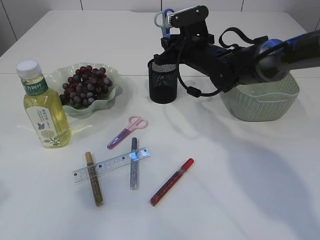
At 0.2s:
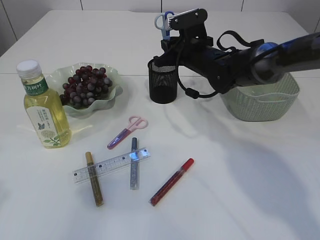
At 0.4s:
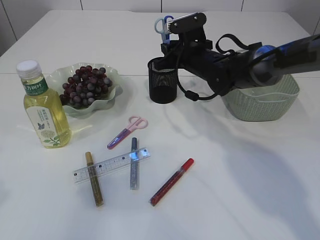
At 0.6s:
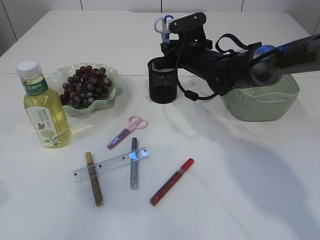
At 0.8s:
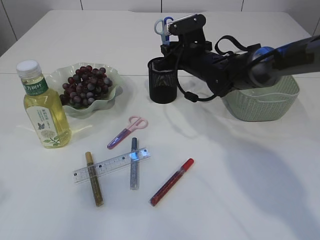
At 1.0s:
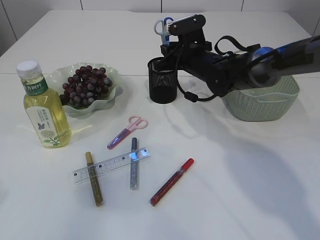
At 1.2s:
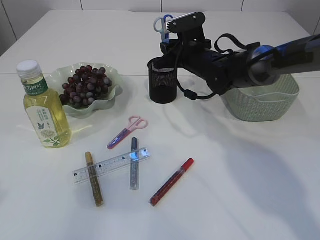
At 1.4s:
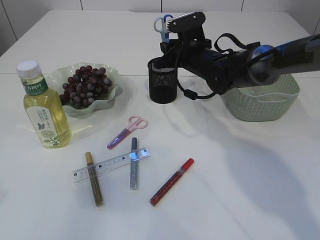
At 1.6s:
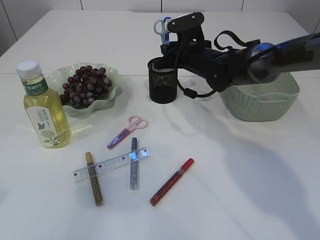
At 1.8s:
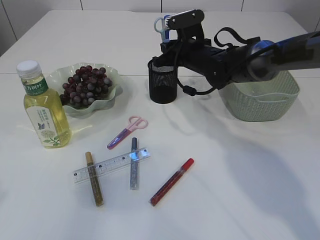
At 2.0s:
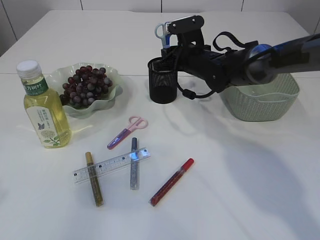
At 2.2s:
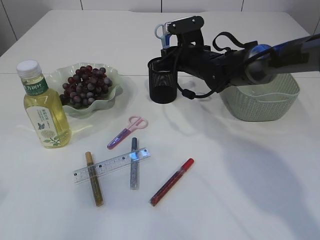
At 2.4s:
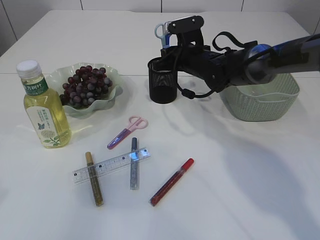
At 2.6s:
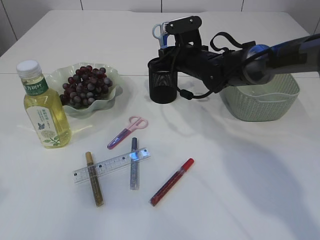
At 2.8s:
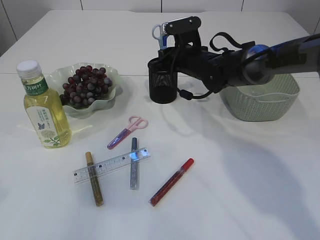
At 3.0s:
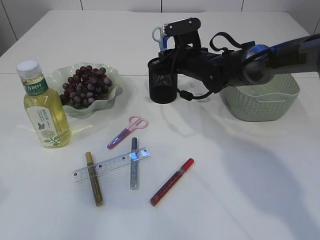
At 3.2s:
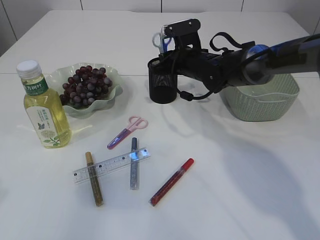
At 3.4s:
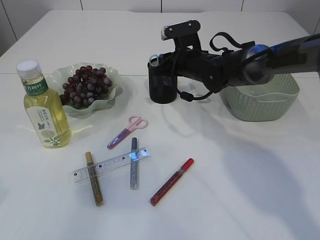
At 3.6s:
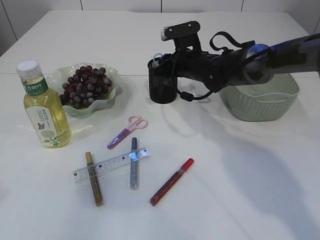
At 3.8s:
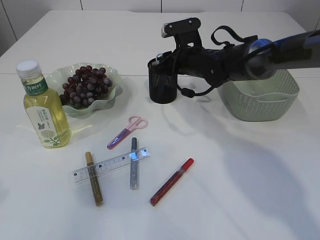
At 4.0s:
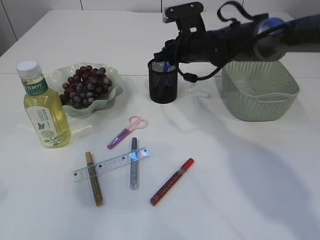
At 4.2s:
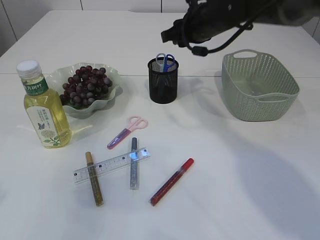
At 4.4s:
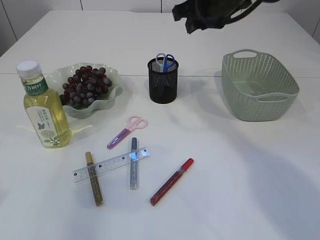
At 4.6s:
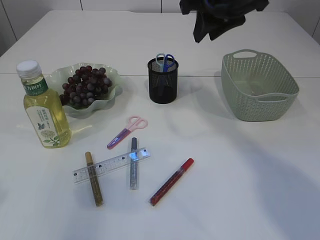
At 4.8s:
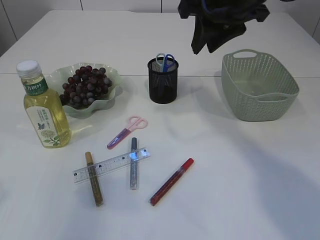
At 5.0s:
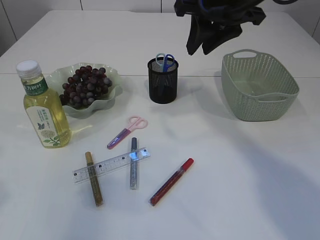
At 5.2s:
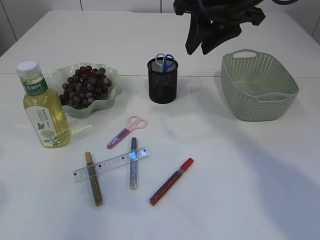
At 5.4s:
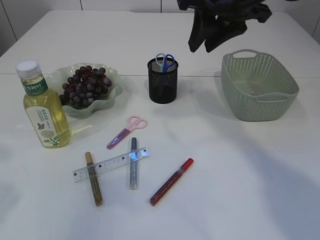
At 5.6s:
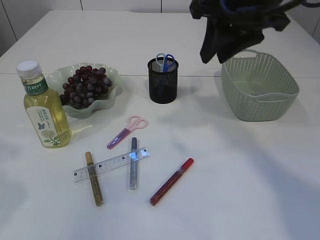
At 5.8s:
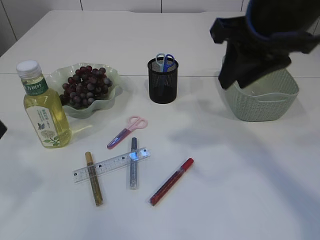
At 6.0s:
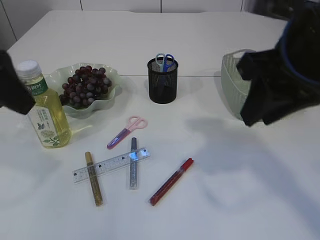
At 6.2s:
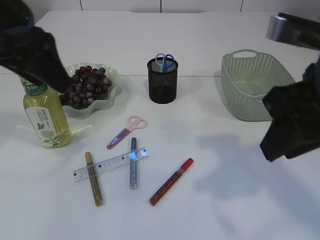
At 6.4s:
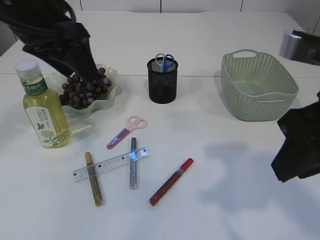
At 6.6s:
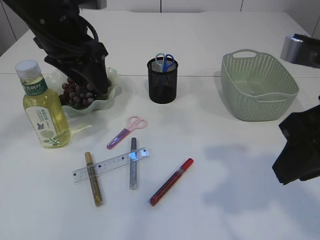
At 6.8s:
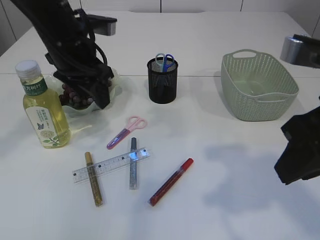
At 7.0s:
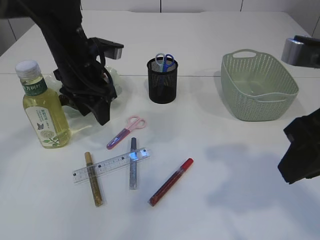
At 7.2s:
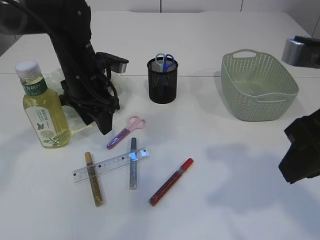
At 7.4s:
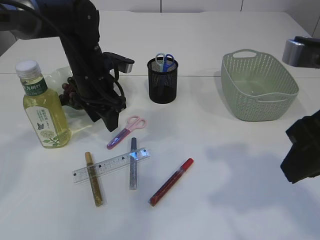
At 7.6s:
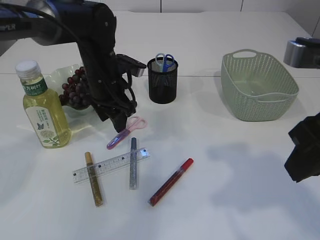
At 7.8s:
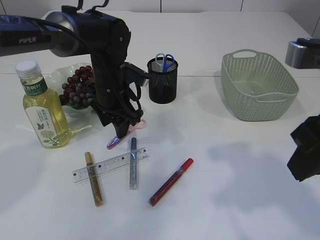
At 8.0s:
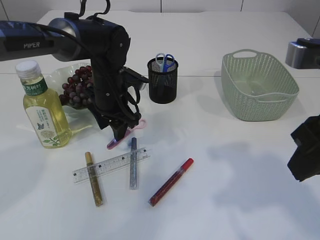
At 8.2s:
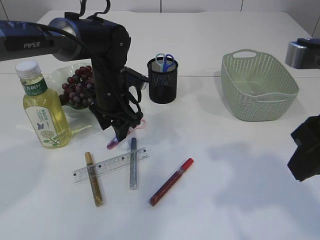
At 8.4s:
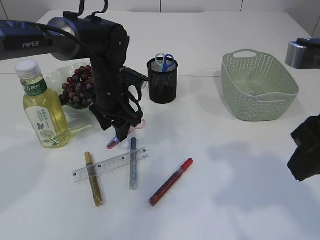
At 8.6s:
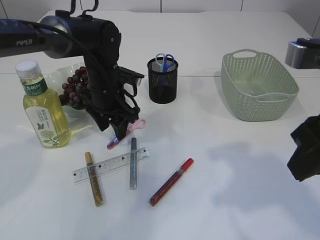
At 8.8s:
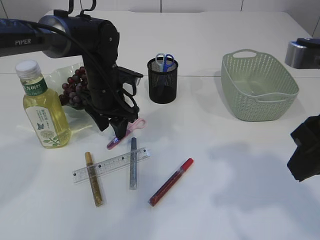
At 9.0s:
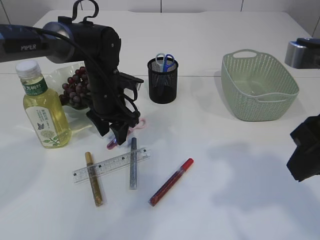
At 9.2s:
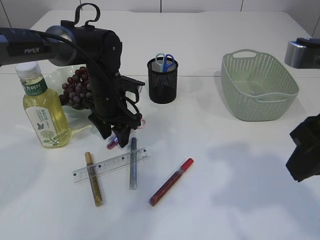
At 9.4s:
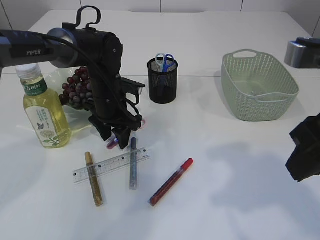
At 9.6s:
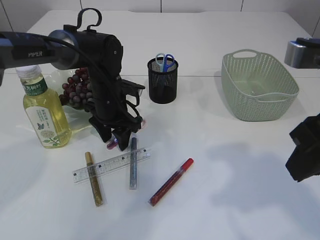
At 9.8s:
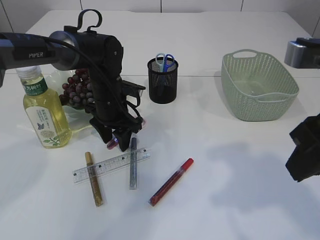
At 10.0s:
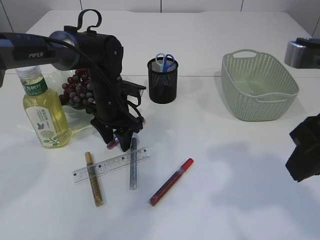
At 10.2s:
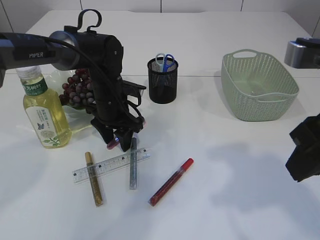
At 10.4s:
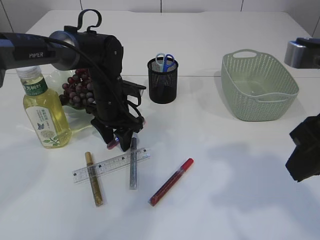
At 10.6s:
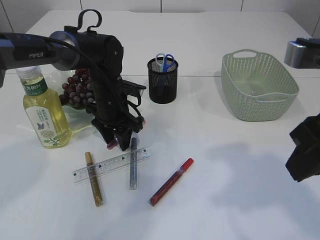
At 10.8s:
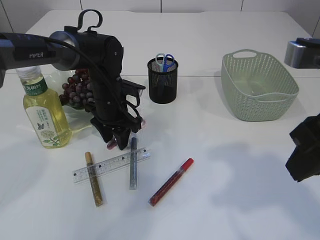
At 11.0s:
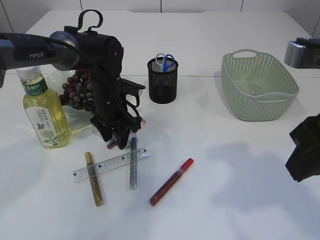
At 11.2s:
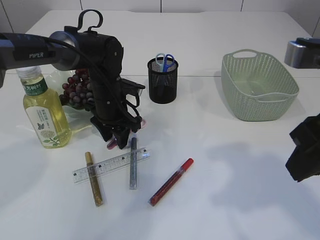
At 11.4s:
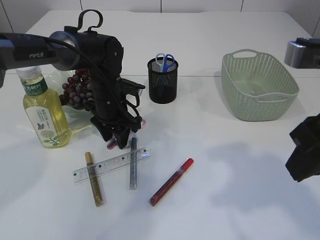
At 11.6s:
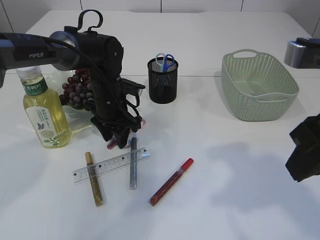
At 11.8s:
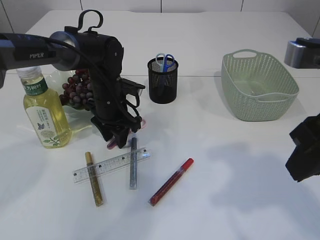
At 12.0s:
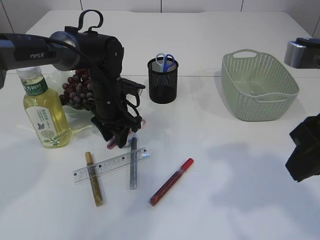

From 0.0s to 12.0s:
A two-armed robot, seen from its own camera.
Step, from 0.0s to 4.2s: Place the blue scissors into the pen holder.
From 0.0s to 3.0s: The grippers stay close to where they were, moving slightly.
From 3.0s to 4.4s: The right gripper goes some 15 cm upward.
From 4.4s to 6.0s: The left gripper travels to the right and forward by about 10 cm. The right gripper heads backward, covering some 20 cm.
From 6.0s to 7.6s: The left gripper goes about 30 cm forward, downward and to the right; the right gripper travels backward by approximately 5 cm.
From 7.6s to 10.4s: There are only small adjustments of the grippers.
From 10.4s to 12.0s: Neither gripper changes place.

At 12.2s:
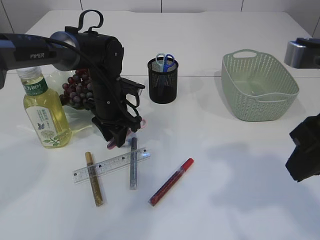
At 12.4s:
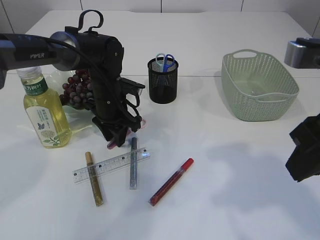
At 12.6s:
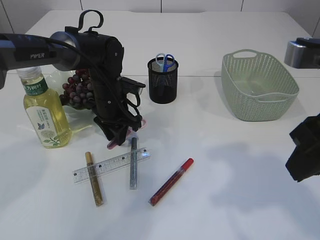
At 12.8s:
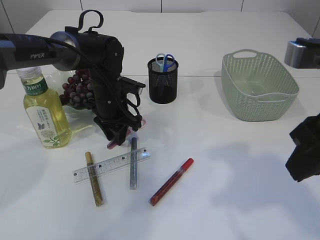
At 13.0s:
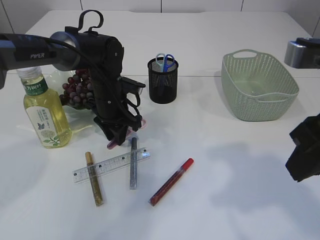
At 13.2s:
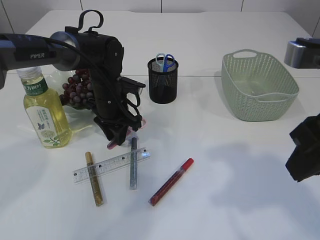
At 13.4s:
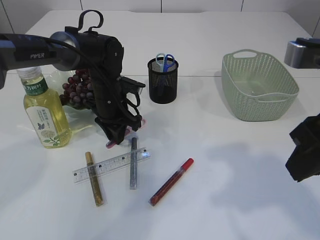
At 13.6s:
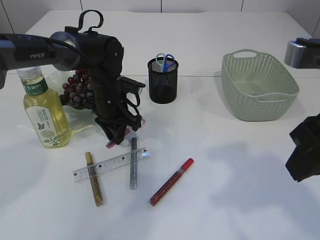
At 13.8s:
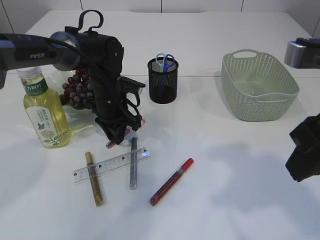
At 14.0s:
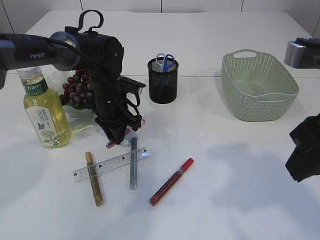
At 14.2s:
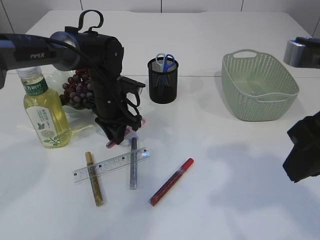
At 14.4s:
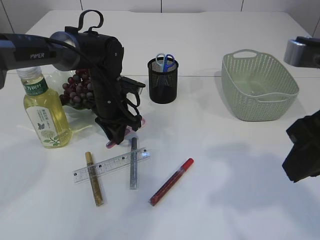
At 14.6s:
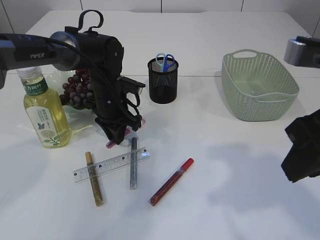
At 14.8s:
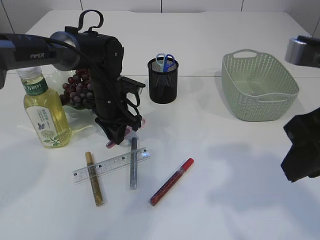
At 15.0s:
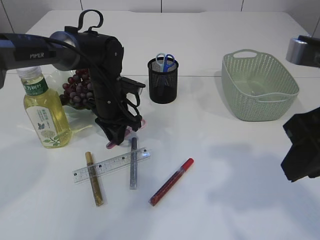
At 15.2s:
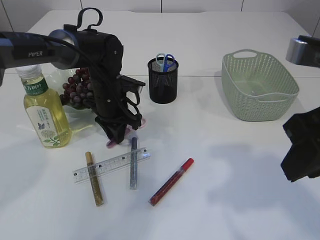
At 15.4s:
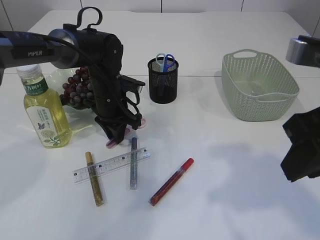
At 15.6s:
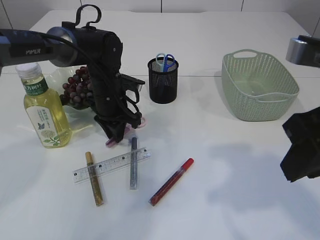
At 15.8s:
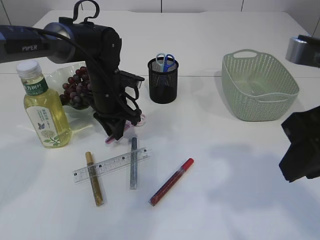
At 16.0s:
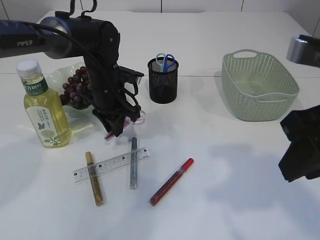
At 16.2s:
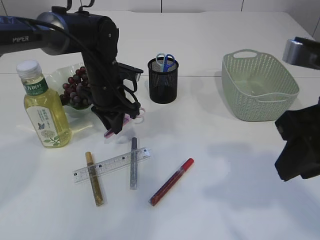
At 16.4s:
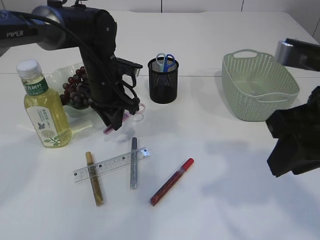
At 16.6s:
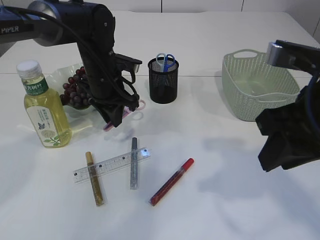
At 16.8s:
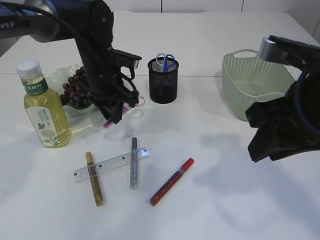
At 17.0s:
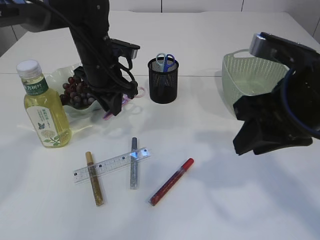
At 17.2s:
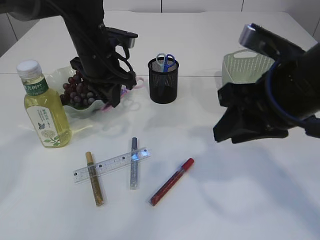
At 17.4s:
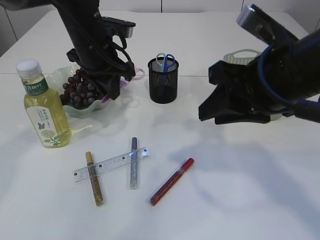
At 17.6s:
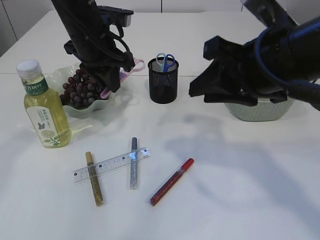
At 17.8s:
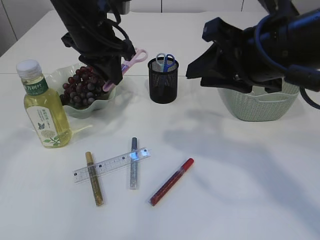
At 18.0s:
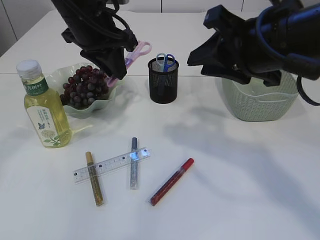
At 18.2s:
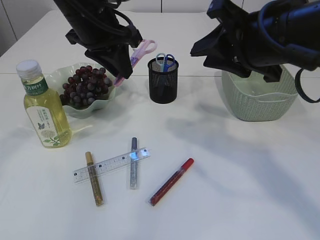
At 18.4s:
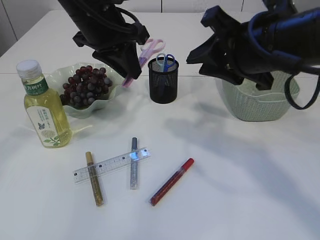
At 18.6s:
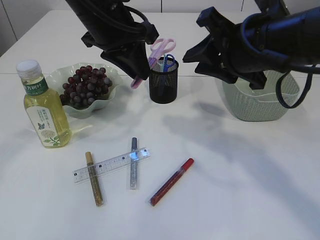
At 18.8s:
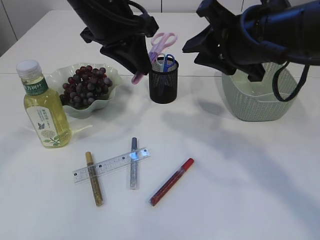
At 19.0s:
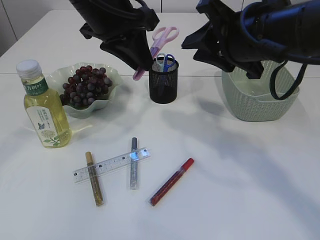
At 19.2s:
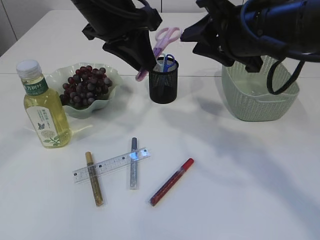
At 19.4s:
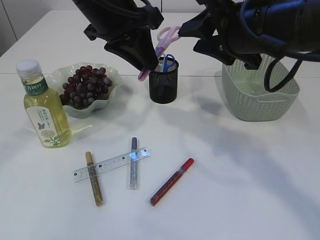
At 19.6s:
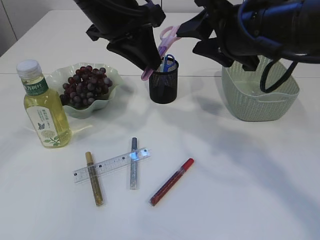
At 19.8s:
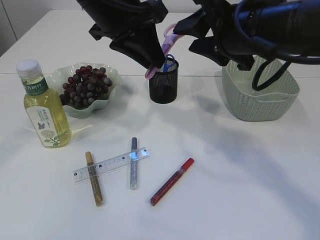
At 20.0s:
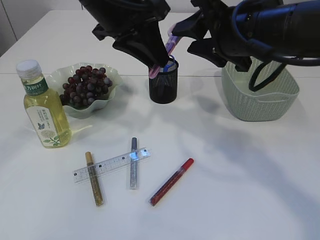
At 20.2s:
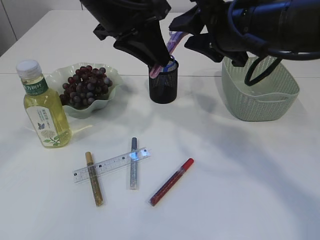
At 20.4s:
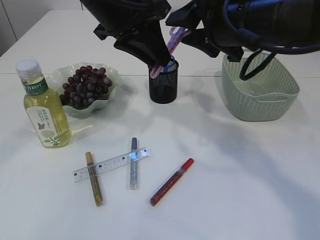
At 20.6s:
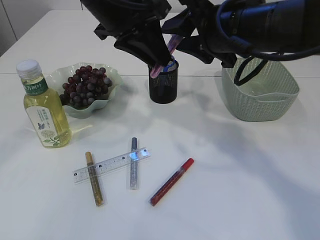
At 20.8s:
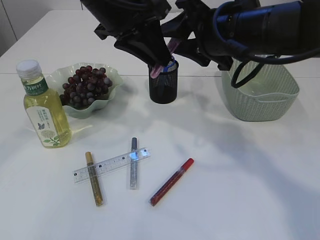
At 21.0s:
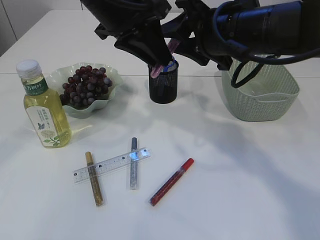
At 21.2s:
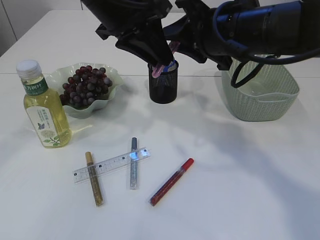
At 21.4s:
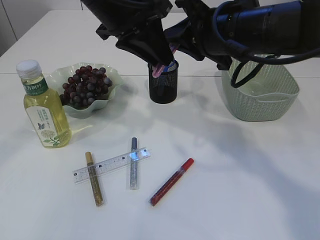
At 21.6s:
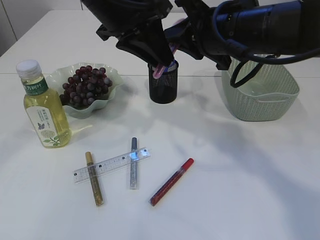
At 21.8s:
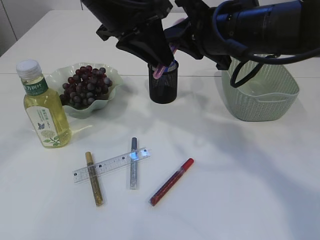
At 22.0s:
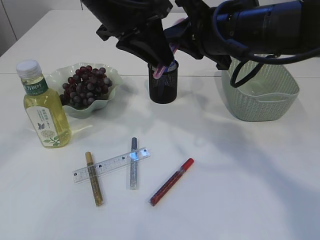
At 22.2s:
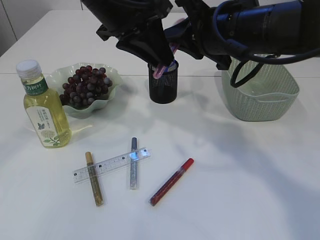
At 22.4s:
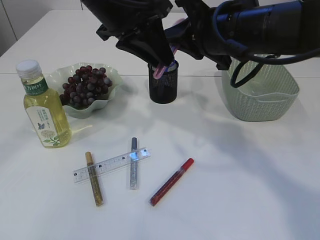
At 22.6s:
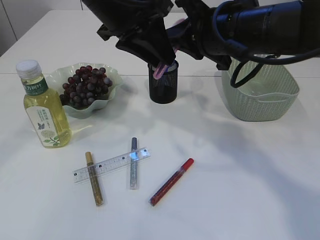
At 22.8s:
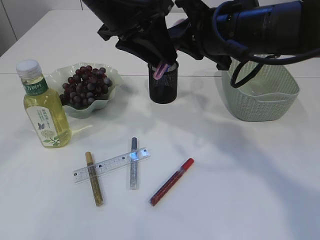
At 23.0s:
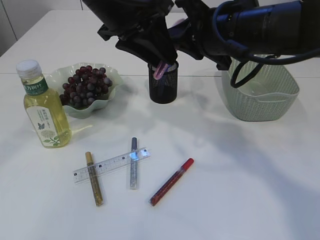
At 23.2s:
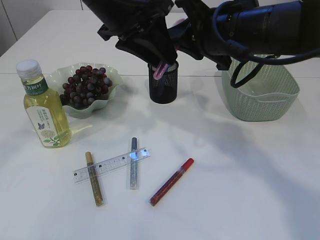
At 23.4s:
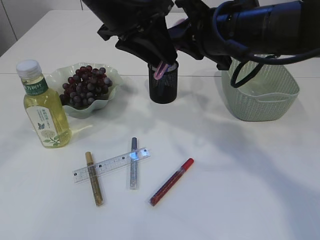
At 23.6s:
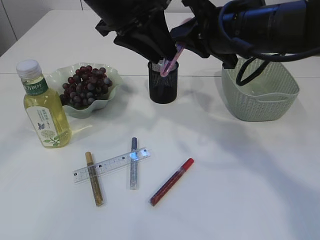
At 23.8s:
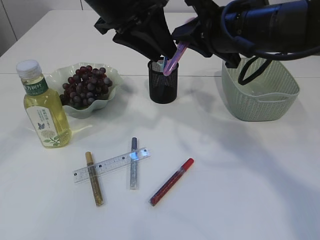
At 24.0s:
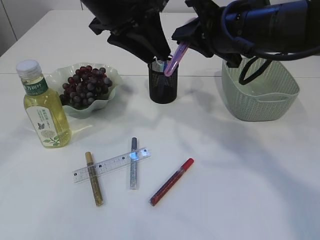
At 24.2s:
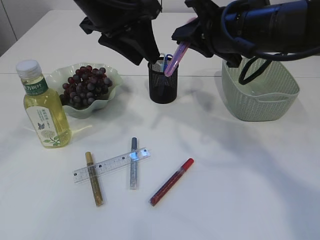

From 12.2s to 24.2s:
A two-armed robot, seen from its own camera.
Step, from 12.2s to 17.0s: Place the pink scissors into the pen holder.
From 12.2s to 13.8s: Neither gripper changes place.
From 13.8s to 15.2s: The grippers stay close to where they were, moving slightly.
From 15.2s to 16.6s: The left gripper goes approximately 5 cm upward.
From 16.6s to 18.2s: The left gripper moves upward, approximately 15 cm. Meanwhile the right gripper goes approximately 5 cm forward.
From 18.2s to 19.8s: The left gripper shifts by approximately 5 cm.
From 19.8s to 21.2s: There are only small adjustments of the grippers.
From 21.2s to 22.6s: The right gripper closes up.
From 22.6s to 24.2s: The grippers stay close to where they were, moving slightly.
